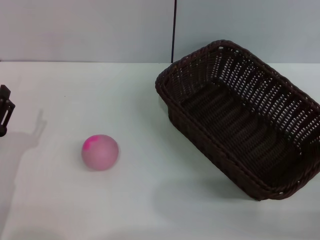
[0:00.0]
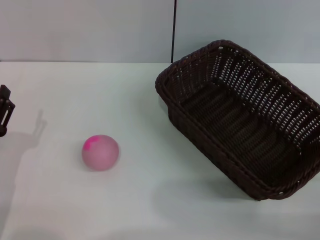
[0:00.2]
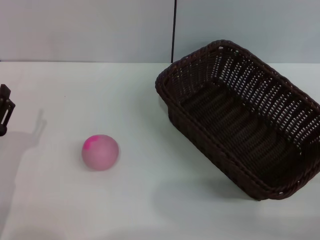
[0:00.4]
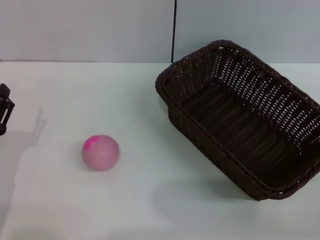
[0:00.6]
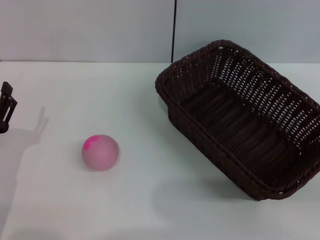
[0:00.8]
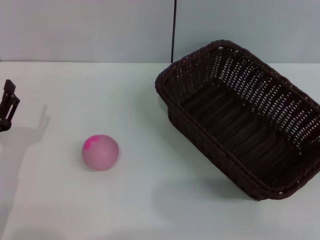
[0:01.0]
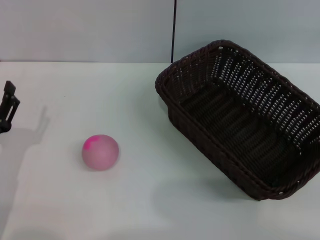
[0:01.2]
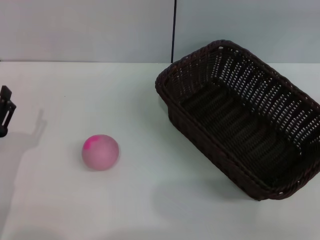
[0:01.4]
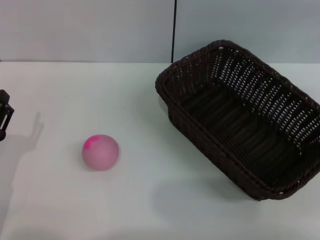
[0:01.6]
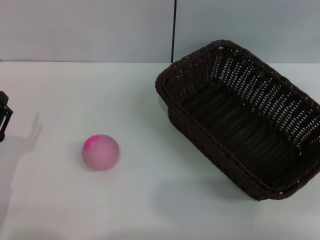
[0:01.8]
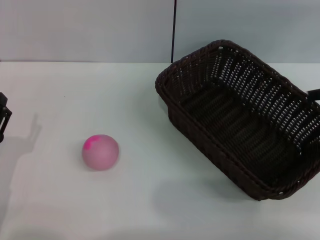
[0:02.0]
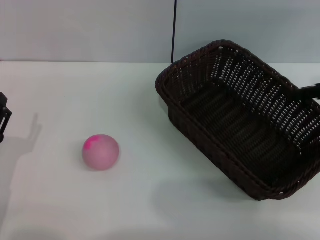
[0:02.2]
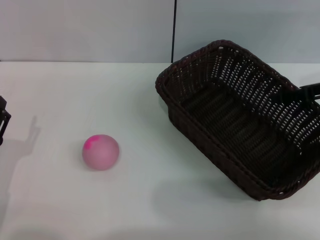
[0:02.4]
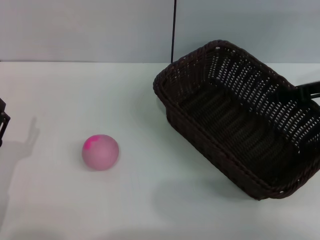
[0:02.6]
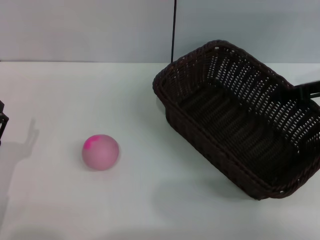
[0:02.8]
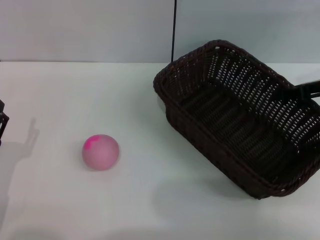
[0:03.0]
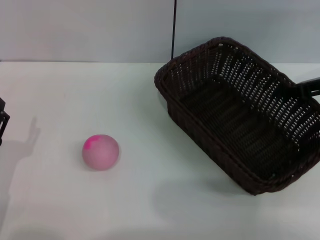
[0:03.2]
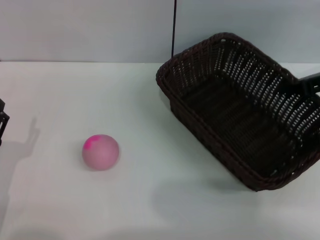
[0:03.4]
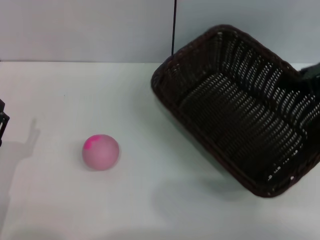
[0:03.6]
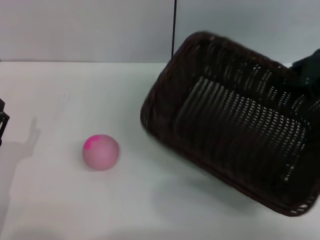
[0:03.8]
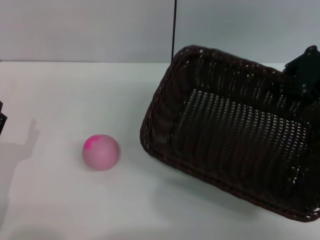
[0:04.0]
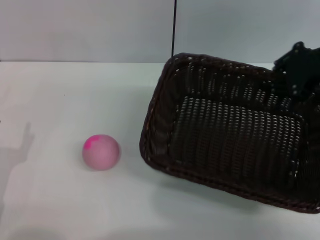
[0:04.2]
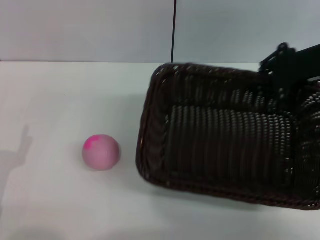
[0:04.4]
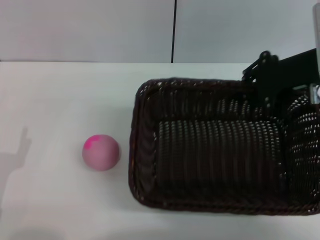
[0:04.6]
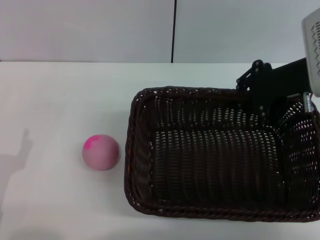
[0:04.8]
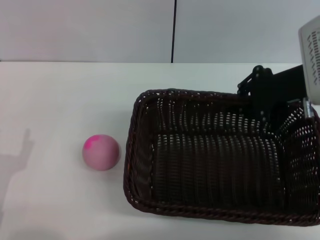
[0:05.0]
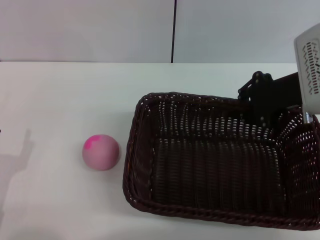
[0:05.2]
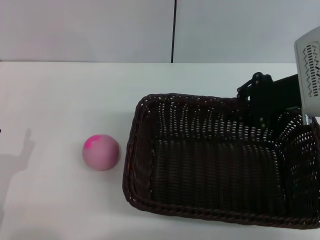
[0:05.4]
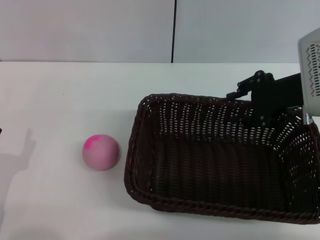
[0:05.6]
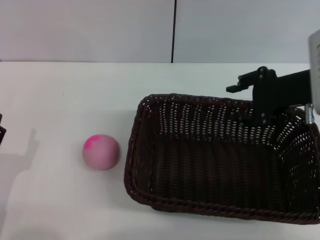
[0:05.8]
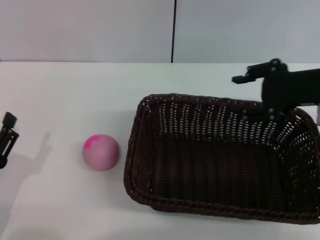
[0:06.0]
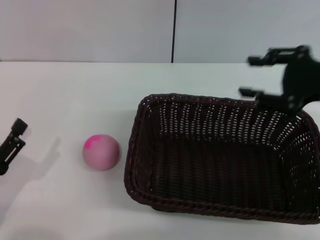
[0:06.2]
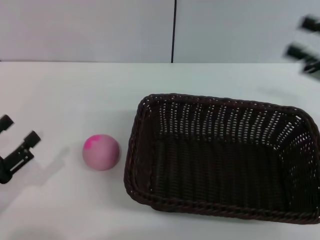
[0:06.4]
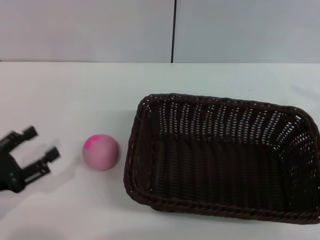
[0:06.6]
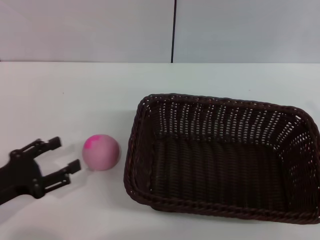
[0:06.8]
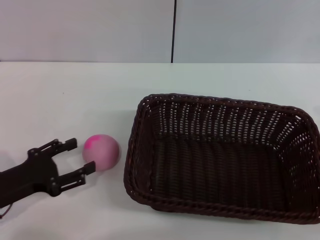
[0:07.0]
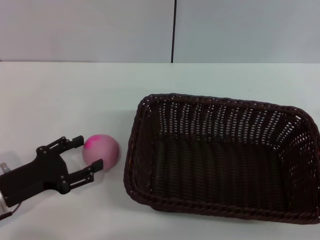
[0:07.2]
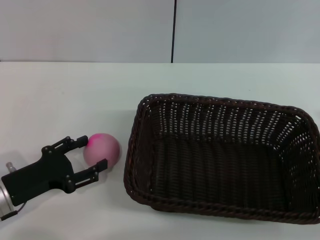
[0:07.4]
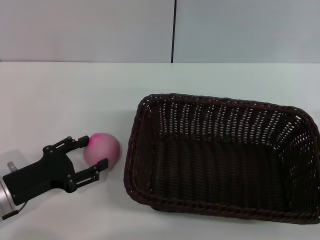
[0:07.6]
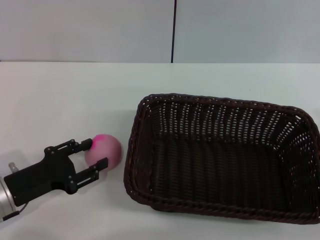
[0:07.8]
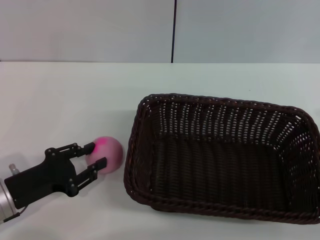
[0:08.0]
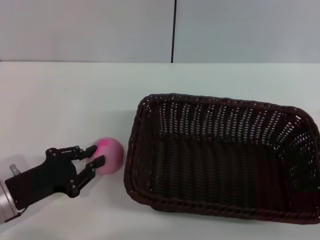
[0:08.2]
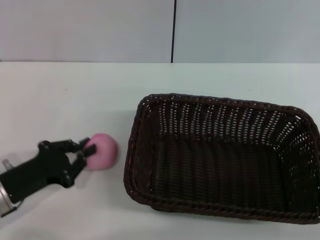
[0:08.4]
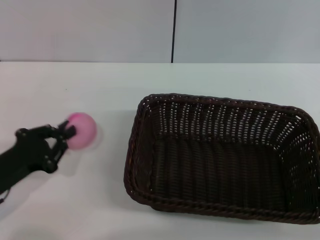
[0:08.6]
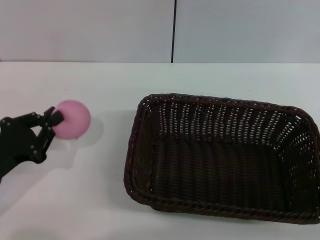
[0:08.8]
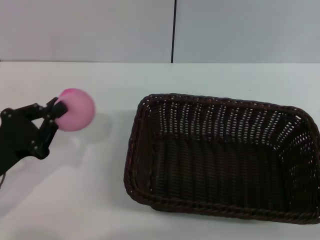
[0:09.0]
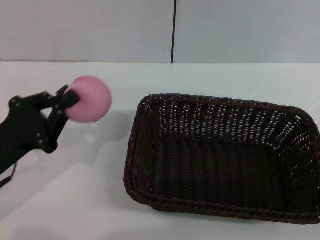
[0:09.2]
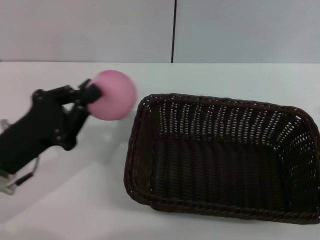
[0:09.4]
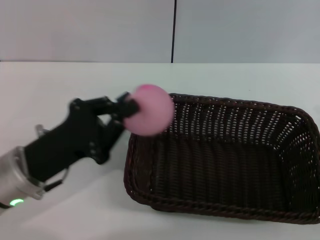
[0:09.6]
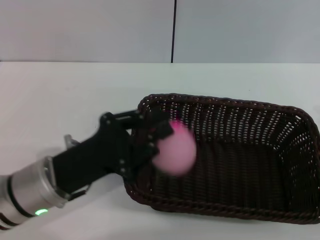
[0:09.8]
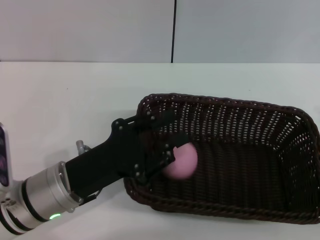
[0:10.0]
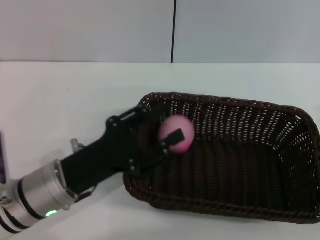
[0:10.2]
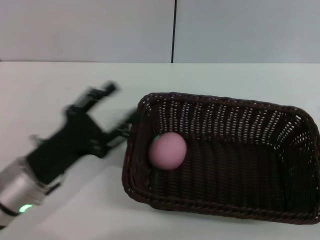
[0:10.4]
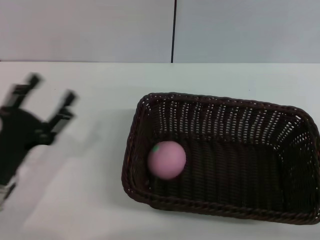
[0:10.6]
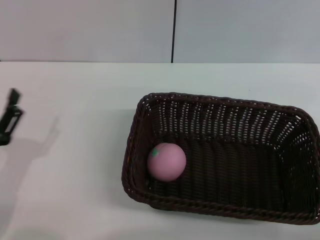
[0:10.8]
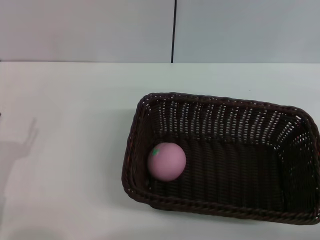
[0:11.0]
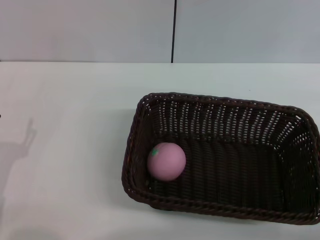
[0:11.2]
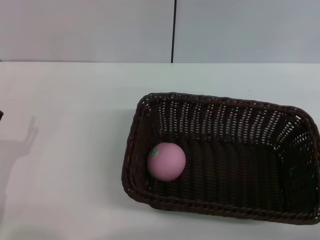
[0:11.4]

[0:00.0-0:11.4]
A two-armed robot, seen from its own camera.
Step, 0:04.2 to 0:05.8: Place the dark basket in the center of view with the right gripper.
Step, 0:06.0 to 0:08.8: Pick up the peach with the left gripper.
Step, 0:09.0 to 0:10.2: Place the peach into the basket with the left gripper.
0:01.4 to 0:02.8: The right gripper heads to the left, downward and forward, covering roughly 15 cm.
0:02.8 to 0:04.2: The right gripper shifts about 5 cm upward, and closes its fingers.
0:04.2 to 0:05.6: The right gripper ends up some 5 cm from where it was, and opens up.
0:05.6 to 0:07.2: The left gripper shifts some 5 cm forward, while the right gripper heads backward, to the right and downward, covering roughly 20 cm, and opens its fingers.
0:07.2 to 0:08.6: The left gripper closes up.
0:08.6 to 0:10.0: The left gripper goes approximately 10 cm to the right.
0:10.0 to 0:11.4: The left gripper goes roughly 10 cm to the left, and opens.

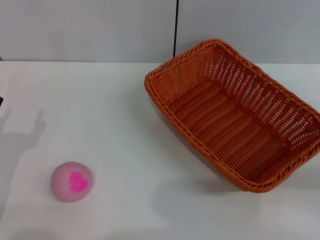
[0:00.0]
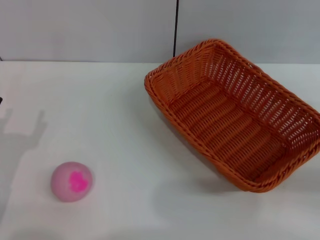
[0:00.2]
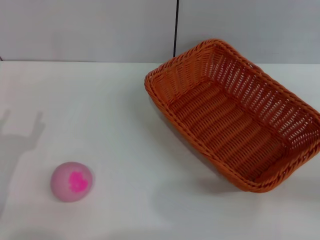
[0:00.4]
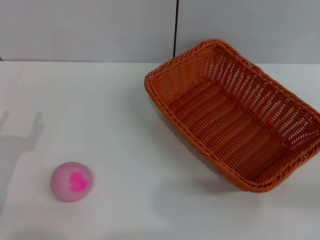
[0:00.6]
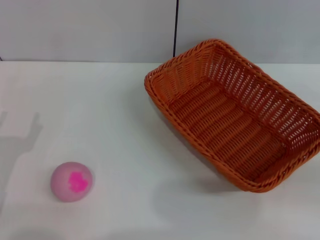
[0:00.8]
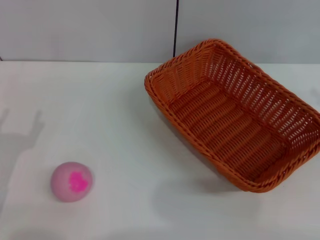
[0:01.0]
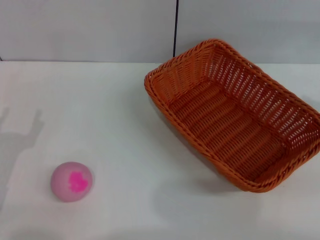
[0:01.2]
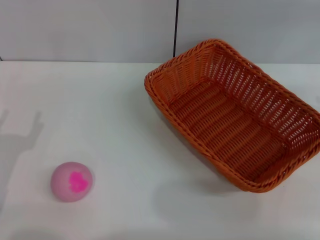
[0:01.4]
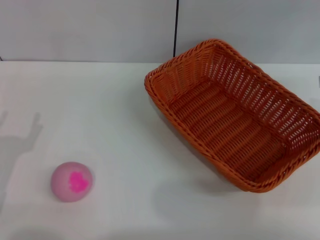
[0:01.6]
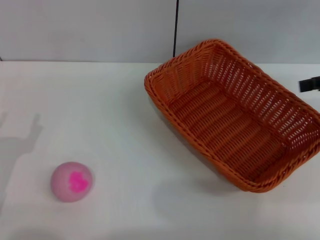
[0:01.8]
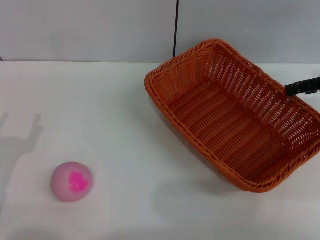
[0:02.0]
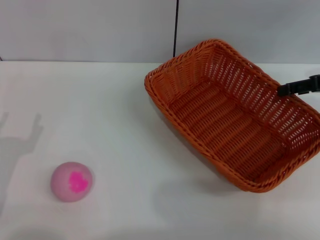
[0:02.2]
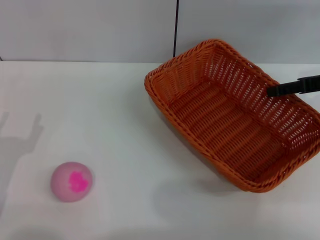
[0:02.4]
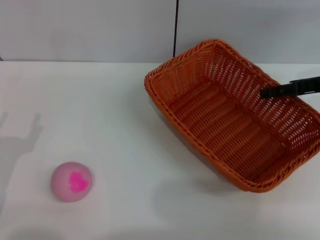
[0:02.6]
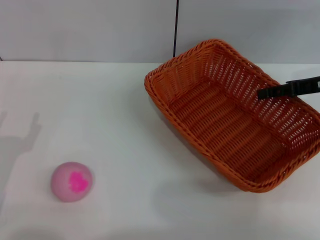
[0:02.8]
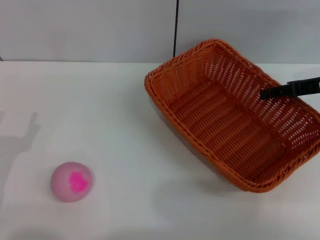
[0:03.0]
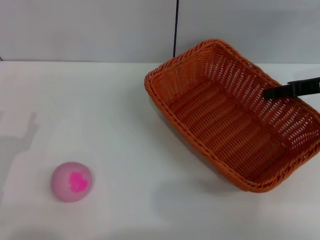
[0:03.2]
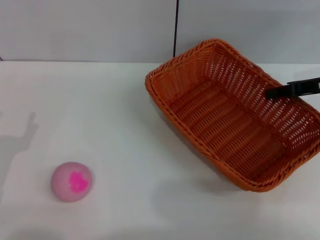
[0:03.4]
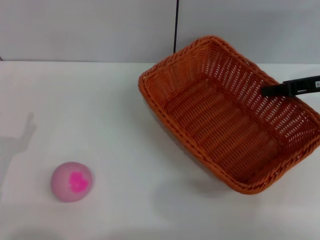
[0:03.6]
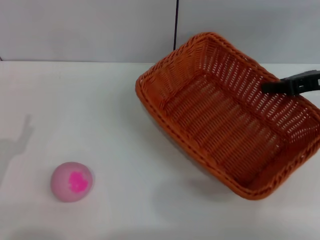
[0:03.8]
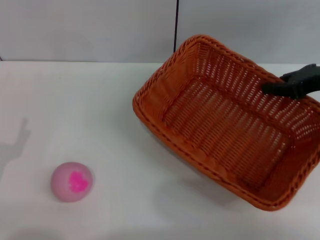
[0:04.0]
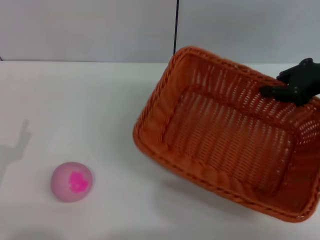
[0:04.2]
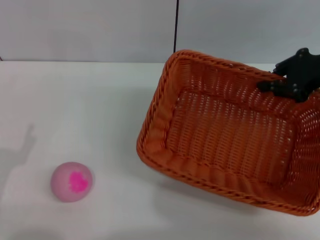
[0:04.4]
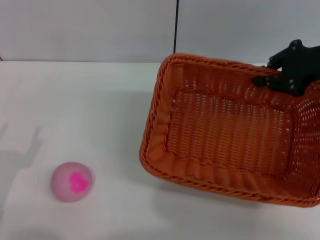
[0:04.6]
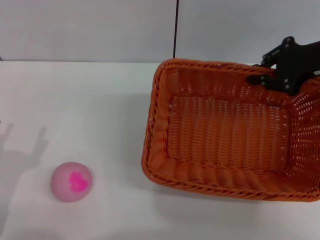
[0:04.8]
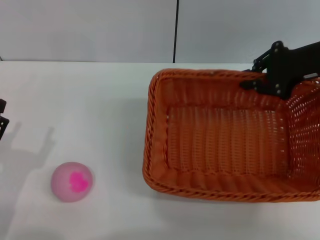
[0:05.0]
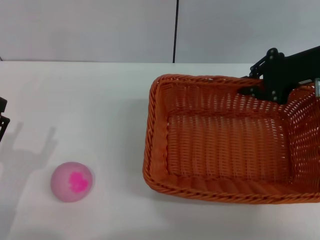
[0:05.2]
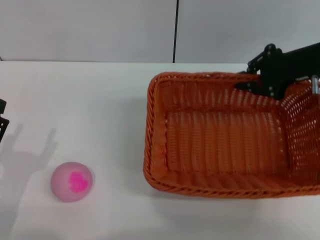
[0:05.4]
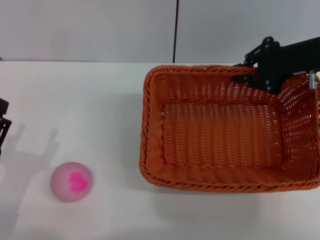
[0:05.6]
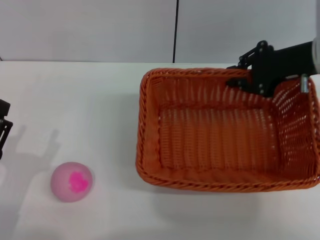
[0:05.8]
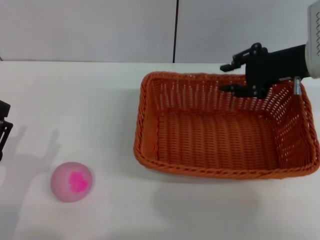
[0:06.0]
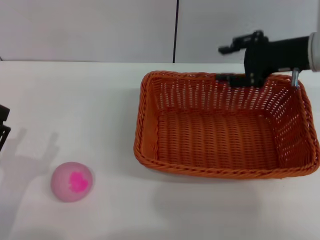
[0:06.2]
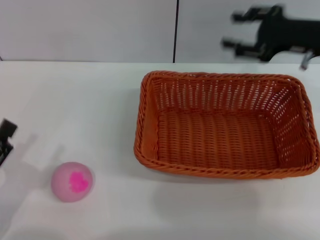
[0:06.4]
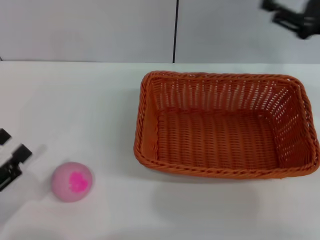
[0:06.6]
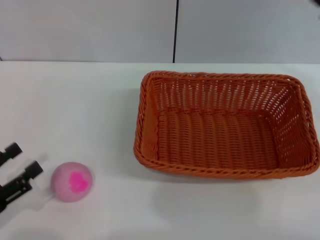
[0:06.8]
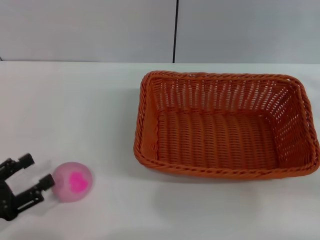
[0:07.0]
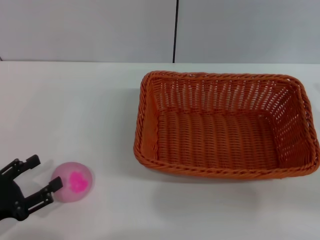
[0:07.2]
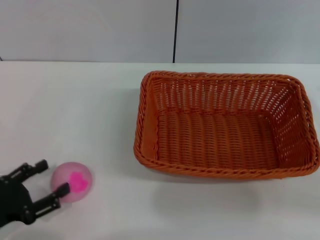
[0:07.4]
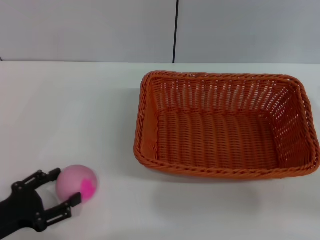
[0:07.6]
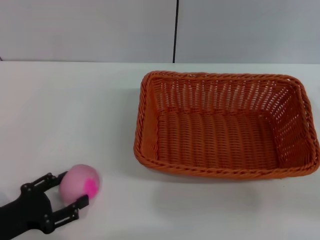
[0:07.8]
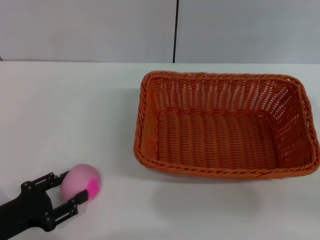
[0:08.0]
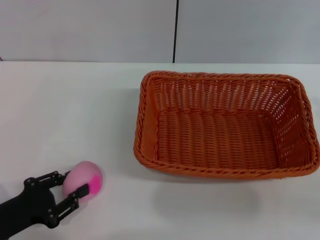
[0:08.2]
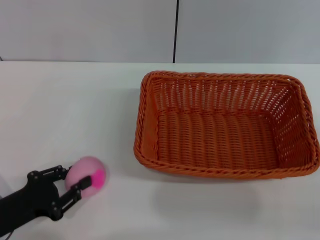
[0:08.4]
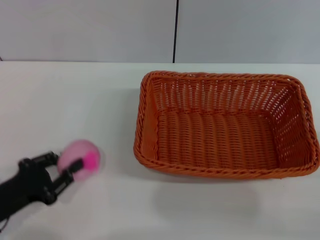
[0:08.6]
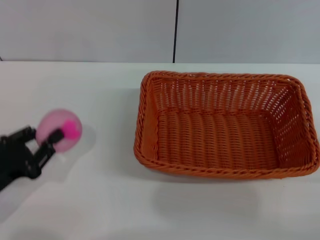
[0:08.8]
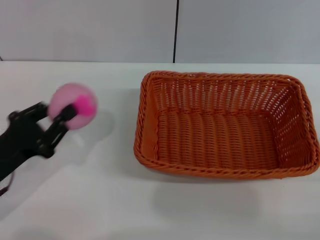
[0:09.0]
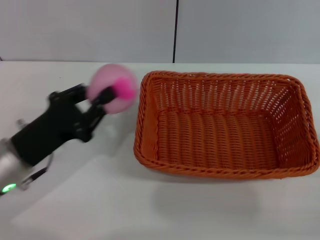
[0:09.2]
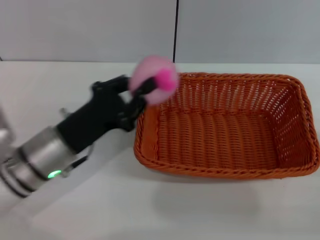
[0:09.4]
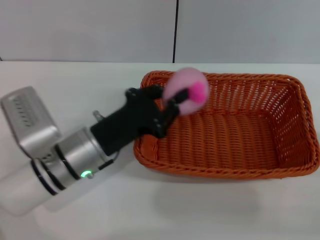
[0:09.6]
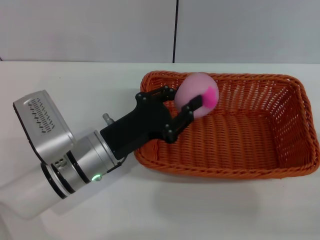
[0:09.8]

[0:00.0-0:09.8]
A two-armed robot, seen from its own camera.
Step, 0:00.0 to 0:04.0: Pick up the light basket with the right gripper.
Step, 0:04.2 to 0:06.4: Place the light basket in the center of view with the right gripper.
Step, 0:06.6 to 0:08.8: Pick up the peach with the left gripper.
0:00.0 to 0:01.4: The right gripper is displaced upward and forward by about 15 cm.
0:01.4 to 0:02.8: The right gripper moves to the left, downward and forward, some 15 cm.
0:02.8 to 0:04.2: The right gripper closes up.
0:04.2 to 0:05.6: The right gripper shifts by about 5 cm.
0:05.6 to 0:07.0: The right gripper shifts about 15 cm backward and to the right, and opens. The left gripper moves to the left, about 5 cm.
0:07.0 to 0:08.4: The left gripper shifts by about 5 cm, and closes up. The right gripper heads backward and downward, covering some 10 cm.
0:08.4 to 0:09.8: The left gripper goes some 20 cm to the right and forward.

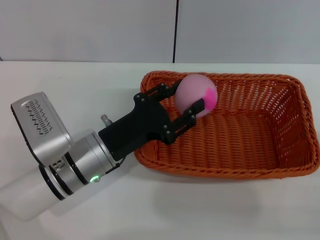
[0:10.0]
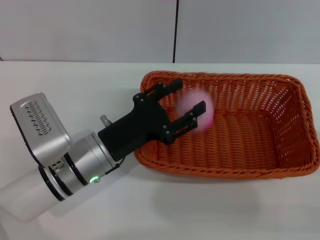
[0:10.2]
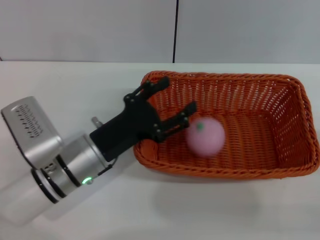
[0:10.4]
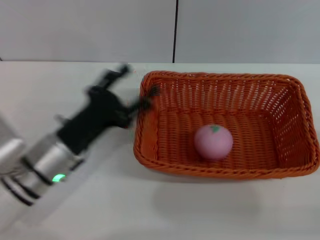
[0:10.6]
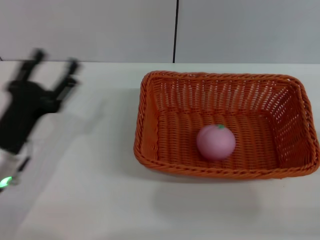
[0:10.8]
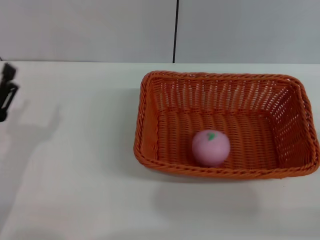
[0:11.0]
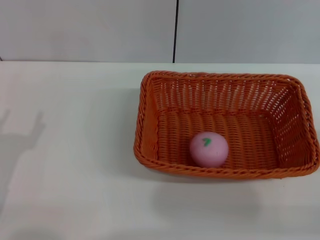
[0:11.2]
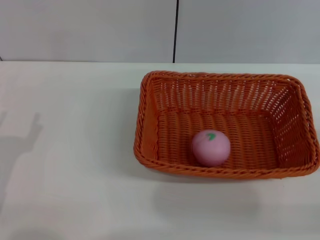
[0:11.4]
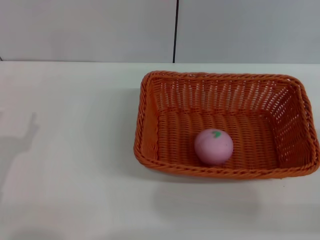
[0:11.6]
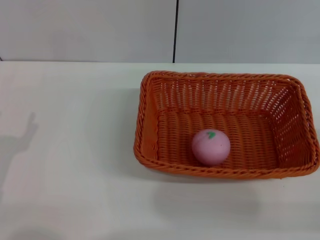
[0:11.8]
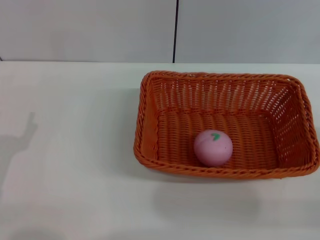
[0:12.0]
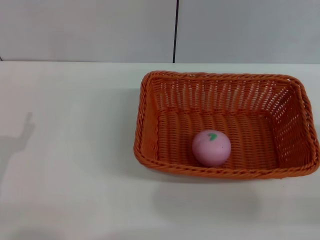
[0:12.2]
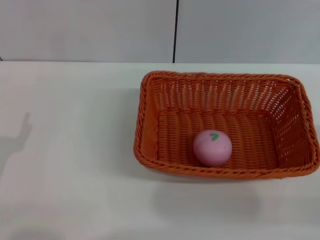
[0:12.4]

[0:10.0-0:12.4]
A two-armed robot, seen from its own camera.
0:10.0 to 0:11.2: The left gripper is displaced to the left and backward by about 20 cm, and opens up.
